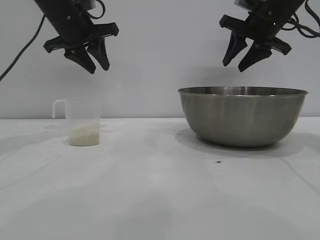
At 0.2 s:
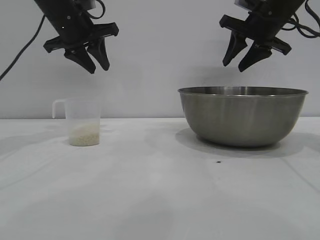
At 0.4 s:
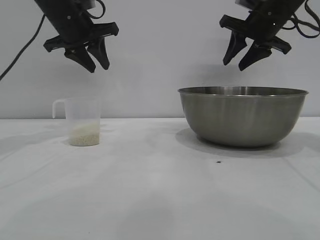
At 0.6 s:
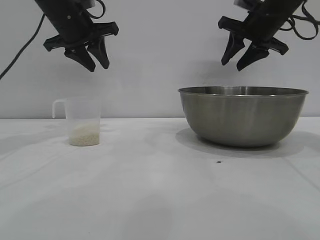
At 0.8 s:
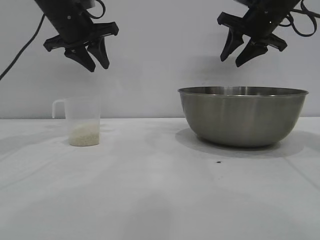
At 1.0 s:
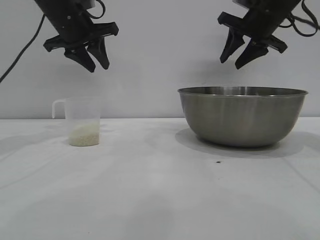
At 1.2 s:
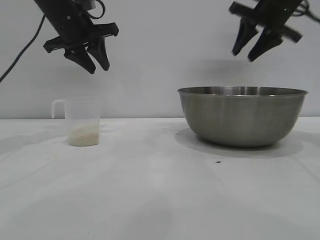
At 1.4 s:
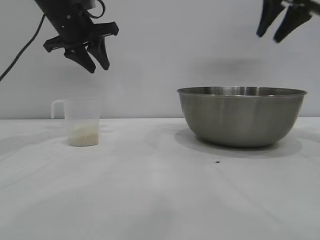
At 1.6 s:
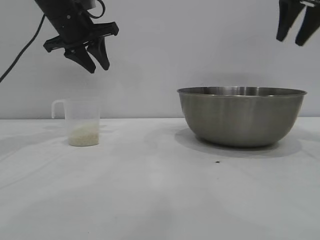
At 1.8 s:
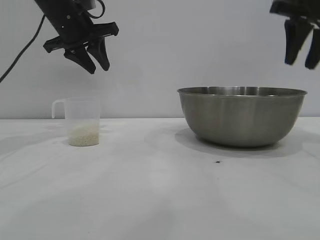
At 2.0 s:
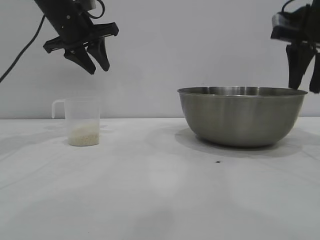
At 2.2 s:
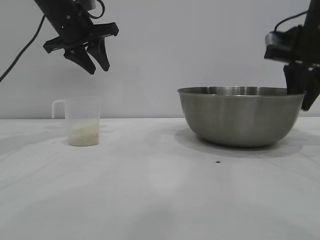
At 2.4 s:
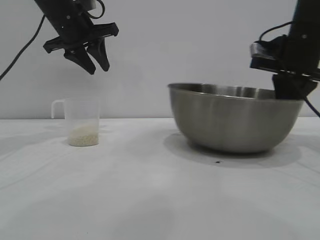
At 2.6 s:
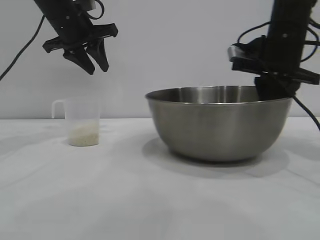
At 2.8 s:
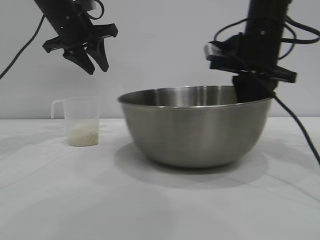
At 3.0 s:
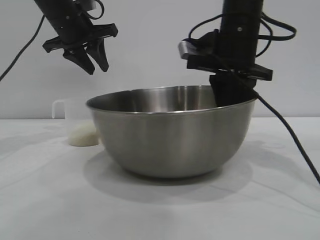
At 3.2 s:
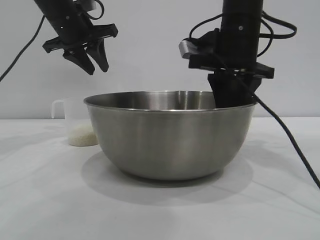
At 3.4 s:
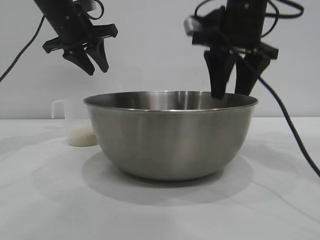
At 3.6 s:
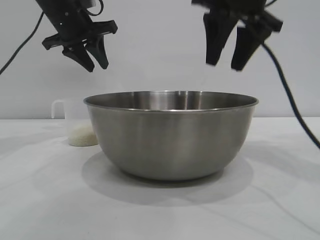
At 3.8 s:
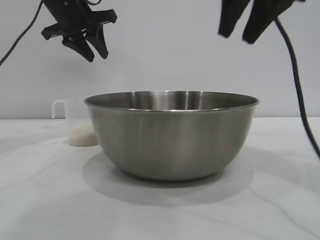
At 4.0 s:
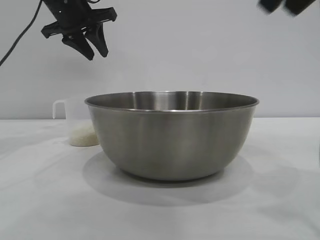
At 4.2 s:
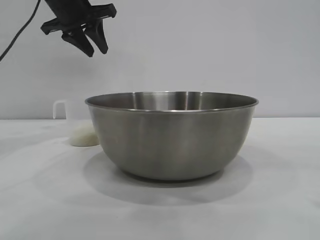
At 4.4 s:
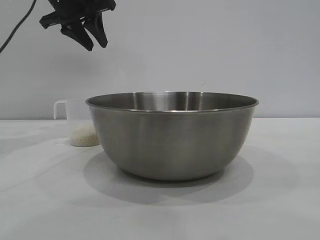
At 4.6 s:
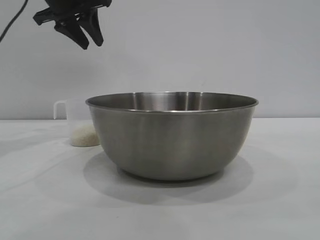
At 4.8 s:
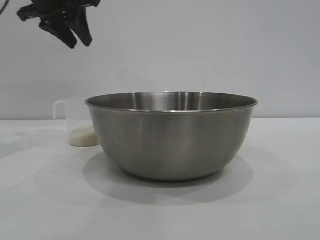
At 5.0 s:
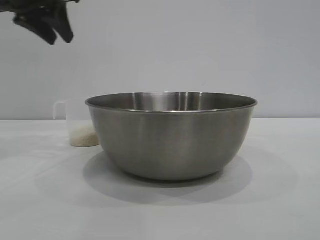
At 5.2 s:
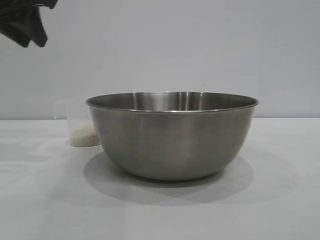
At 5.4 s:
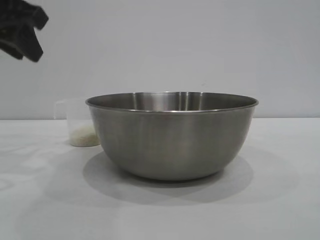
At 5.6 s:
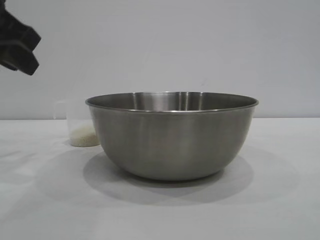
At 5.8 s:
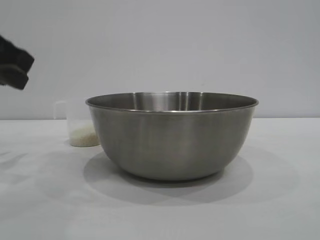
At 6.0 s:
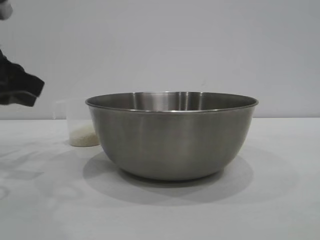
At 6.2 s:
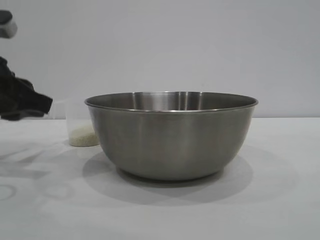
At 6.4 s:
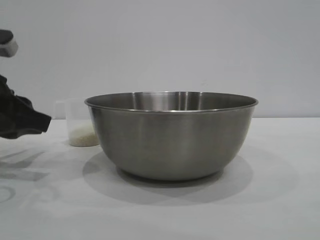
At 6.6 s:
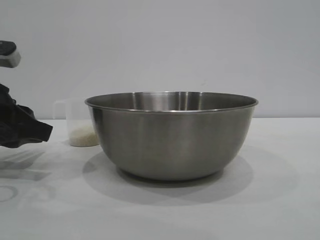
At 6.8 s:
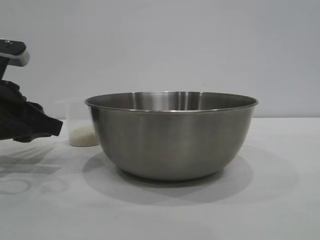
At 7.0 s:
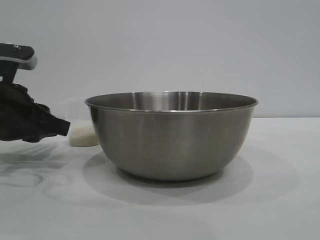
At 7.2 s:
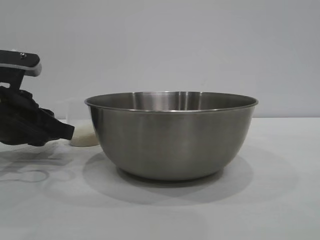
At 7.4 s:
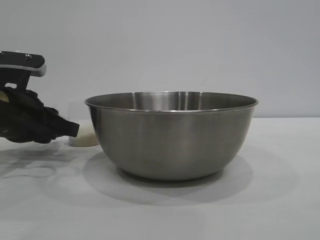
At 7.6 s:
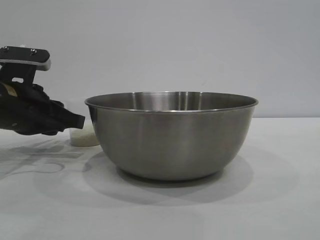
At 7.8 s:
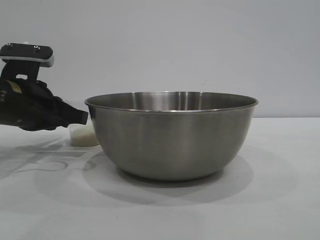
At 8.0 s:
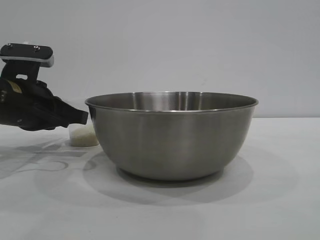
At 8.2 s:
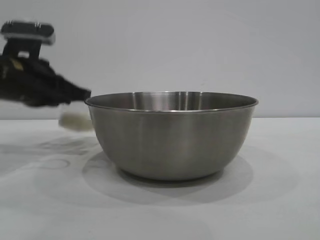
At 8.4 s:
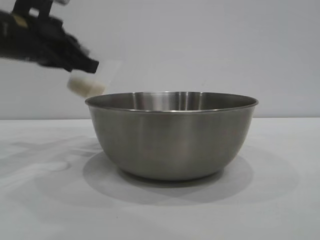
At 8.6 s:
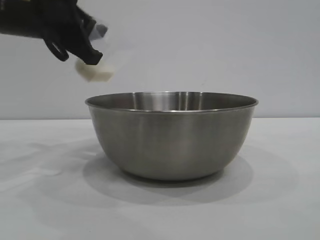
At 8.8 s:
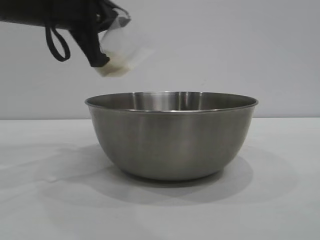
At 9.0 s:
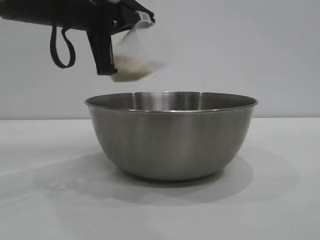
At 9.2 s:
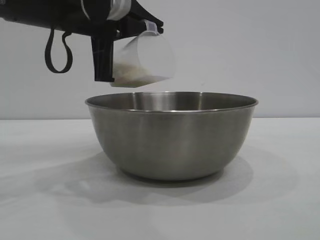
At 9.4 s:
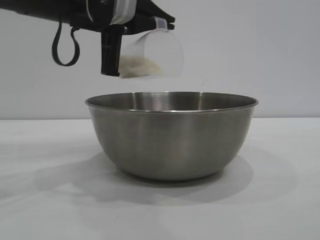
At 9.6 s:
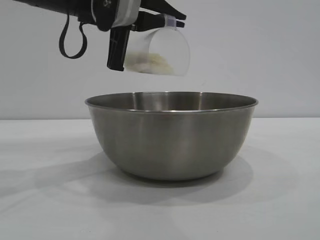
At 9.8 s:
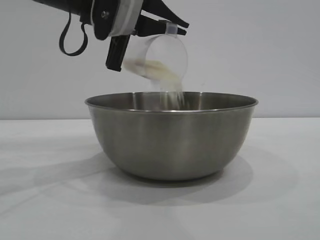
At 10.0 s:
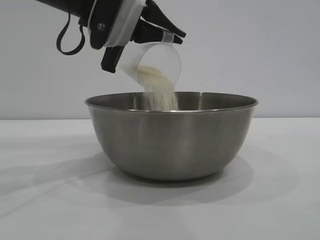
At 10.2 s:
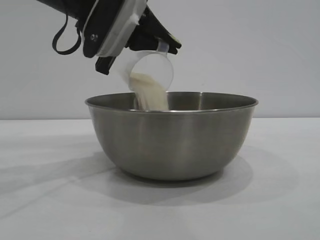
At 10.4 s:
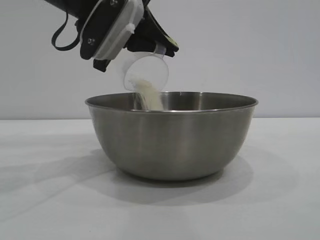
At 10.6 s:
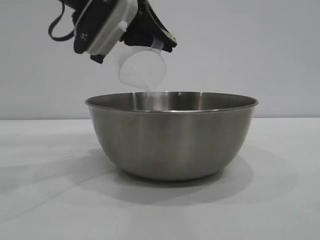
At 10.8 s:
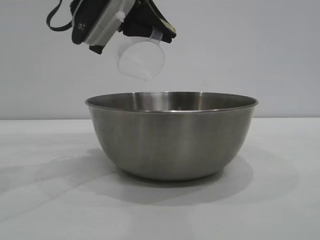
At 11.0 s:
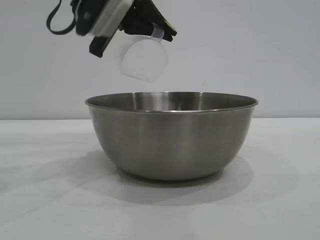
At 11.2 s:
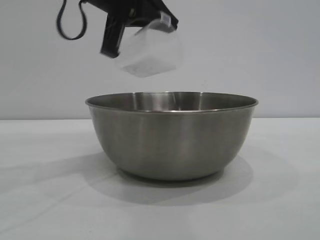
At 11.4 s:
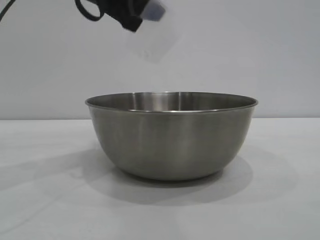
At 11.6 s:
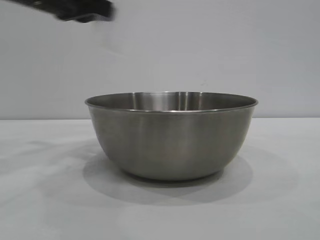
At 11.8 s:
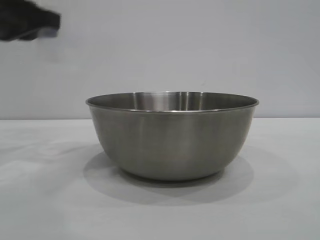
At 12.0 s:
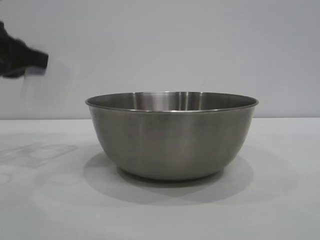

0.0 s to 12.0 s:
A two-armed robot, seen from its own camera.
Task of the whole recording: the right gripper grasp the rice container and place it in the center of the table, the left gripper grasp the rice scoop and pour the rice into the rice container.
Step, 0.0 to 3.6 s: Move the bowl to the center of view with the right gripper.
Step, 3.8 to 8.4 s: Pick up the cup with rice in it with the left gripper.
Step, 8.6 to 11.6 s: Pour the rice from the cup into the bowl with the left gripper.

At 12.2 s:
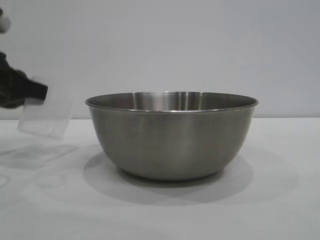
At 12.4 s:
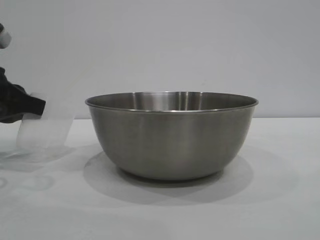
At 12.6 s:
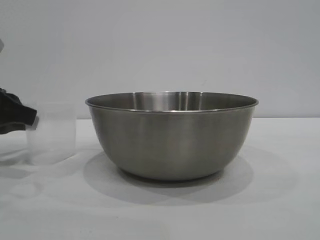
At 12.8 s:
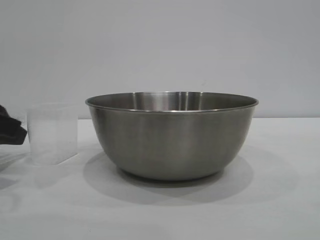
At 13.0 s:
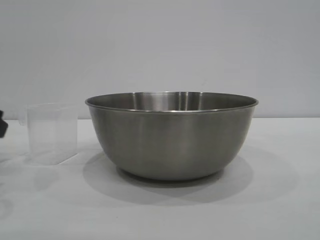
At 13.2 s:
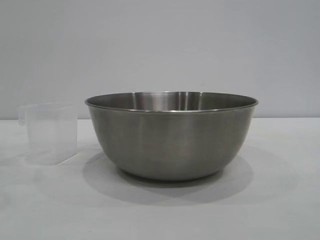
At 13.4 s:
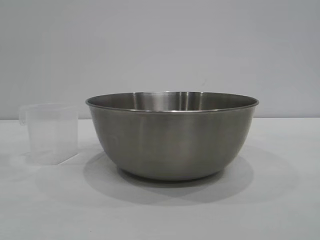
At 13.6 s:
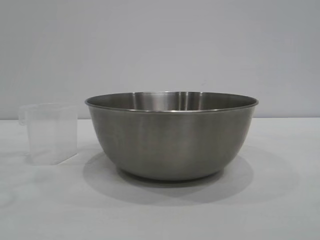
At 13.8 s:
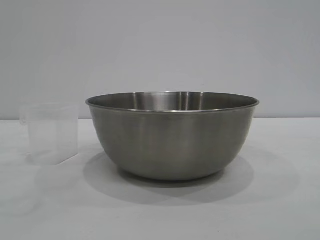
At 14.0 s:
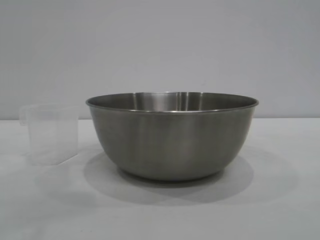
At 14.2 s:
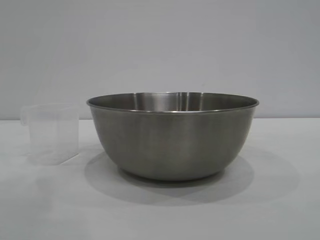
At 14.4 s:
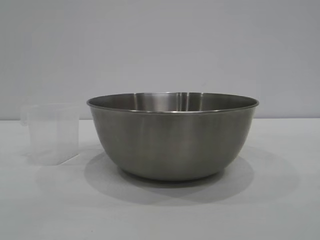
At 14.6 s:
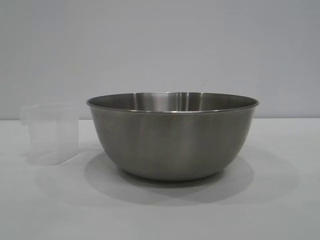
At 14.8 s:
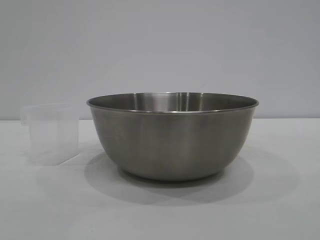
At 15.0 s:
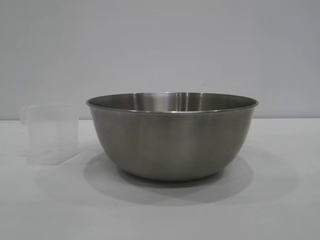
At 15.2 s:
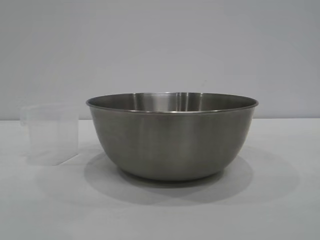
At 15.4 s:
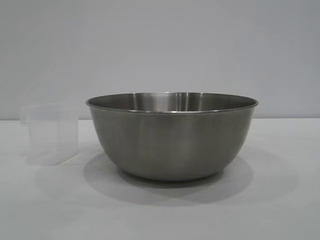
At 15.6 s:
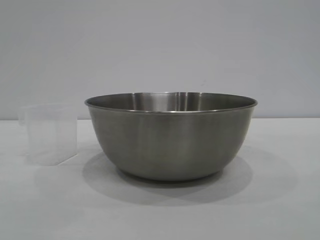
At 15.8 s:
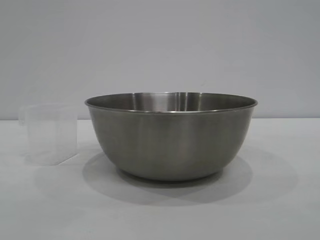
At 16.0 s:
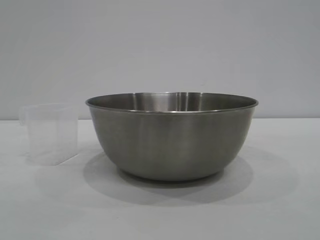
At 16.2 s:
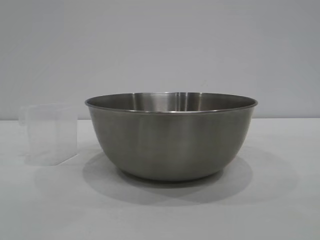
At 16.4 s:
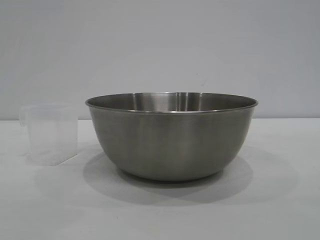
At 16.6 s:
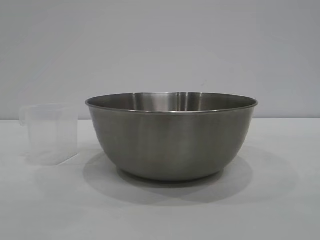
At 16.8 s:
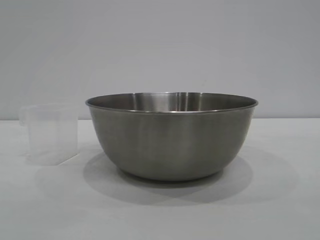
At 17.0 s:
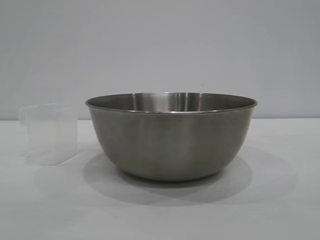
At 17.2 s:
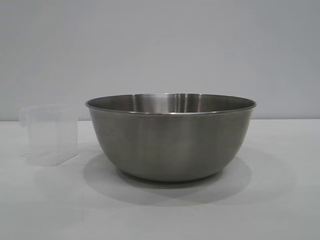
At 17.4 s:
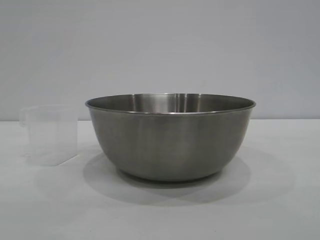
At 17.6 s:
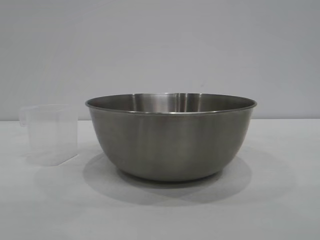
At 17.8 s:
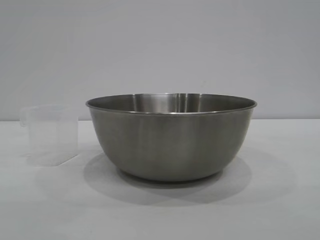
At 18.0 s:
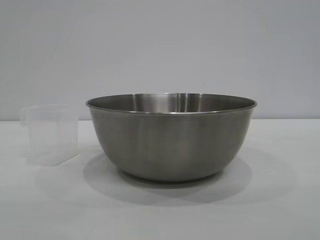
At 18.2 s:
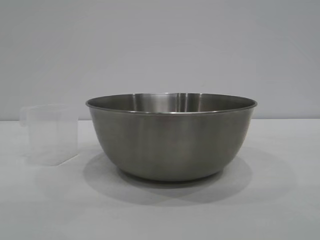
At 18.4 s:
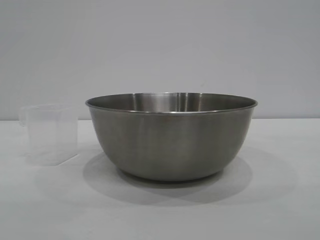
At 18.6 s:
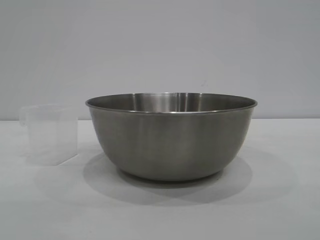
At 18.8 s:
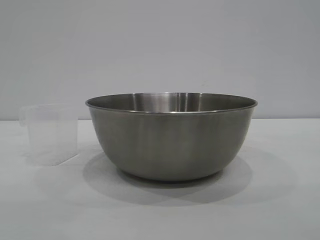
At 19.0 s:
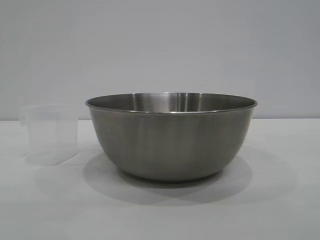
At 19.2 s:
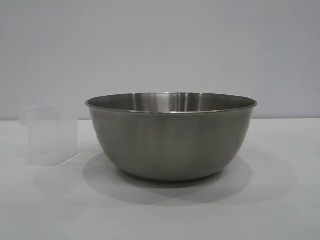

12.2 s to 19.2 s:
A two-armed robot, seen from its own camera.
Task of the whole recording: the right gripper grasp the rice container and place it in the center of the table, the left gripper grasp the rice scoop and pour the rice into the rice container.
Step, 12.2 to 13.0 s: Place the cup on the table with the left gripper.
